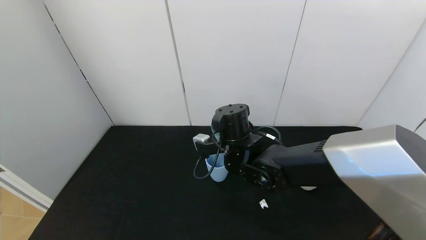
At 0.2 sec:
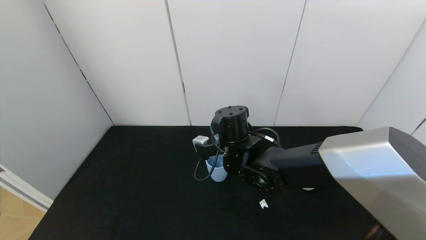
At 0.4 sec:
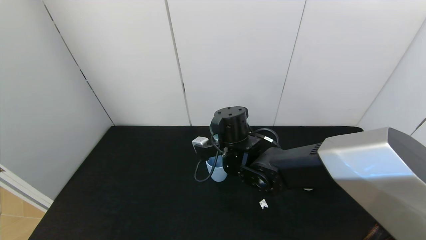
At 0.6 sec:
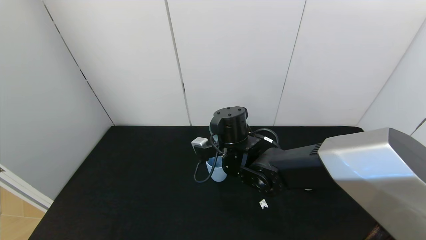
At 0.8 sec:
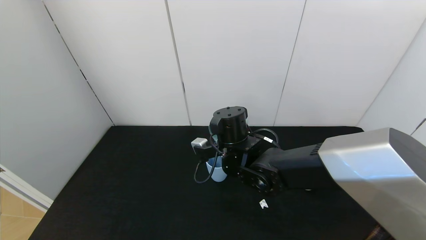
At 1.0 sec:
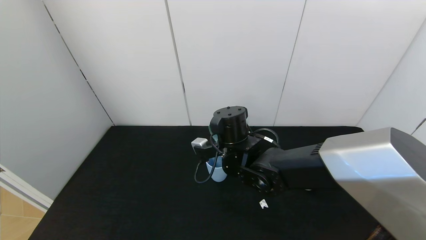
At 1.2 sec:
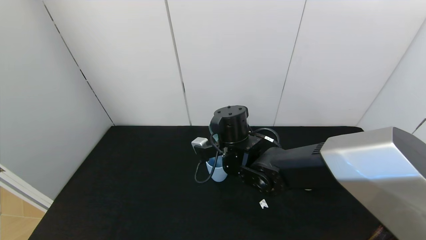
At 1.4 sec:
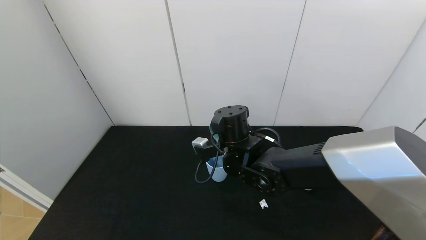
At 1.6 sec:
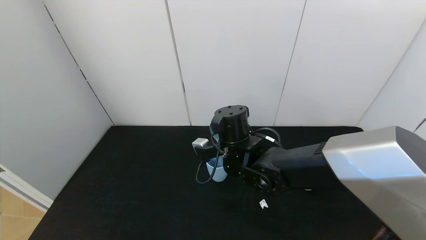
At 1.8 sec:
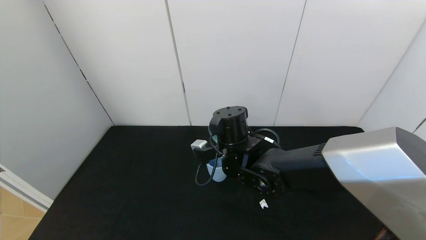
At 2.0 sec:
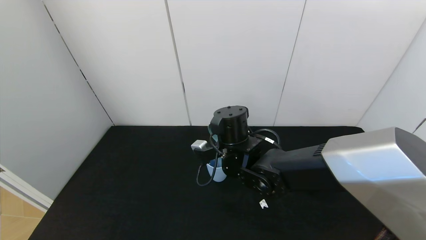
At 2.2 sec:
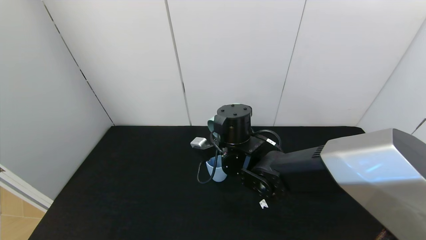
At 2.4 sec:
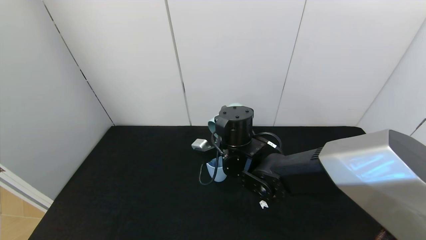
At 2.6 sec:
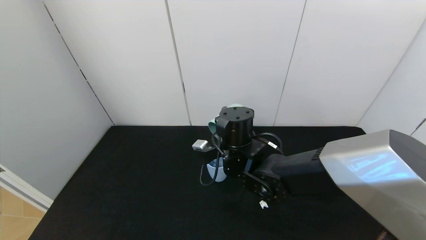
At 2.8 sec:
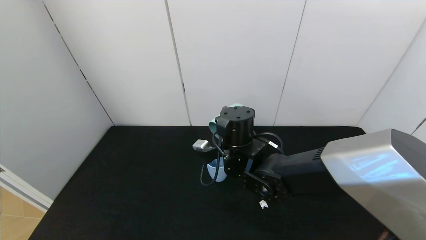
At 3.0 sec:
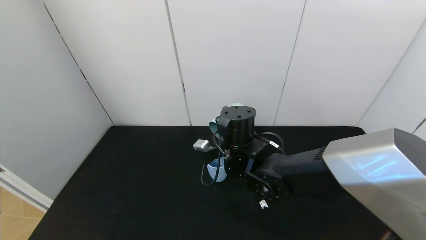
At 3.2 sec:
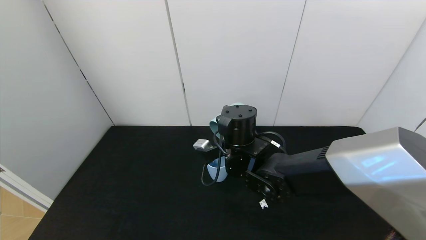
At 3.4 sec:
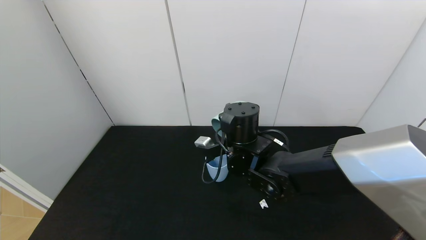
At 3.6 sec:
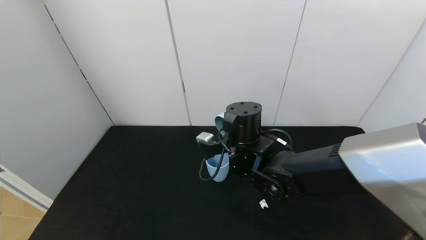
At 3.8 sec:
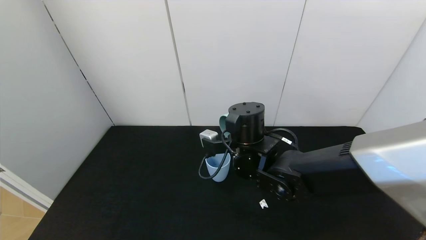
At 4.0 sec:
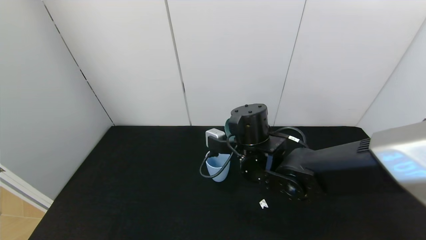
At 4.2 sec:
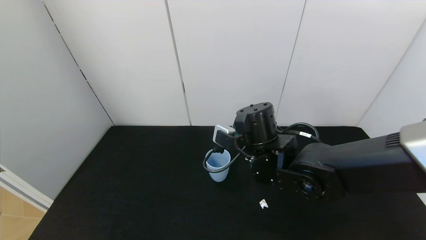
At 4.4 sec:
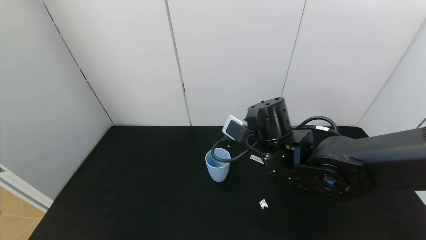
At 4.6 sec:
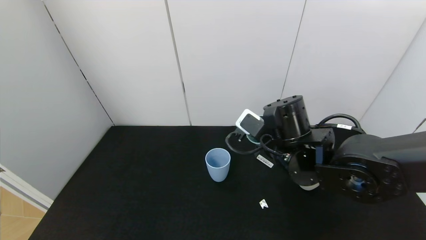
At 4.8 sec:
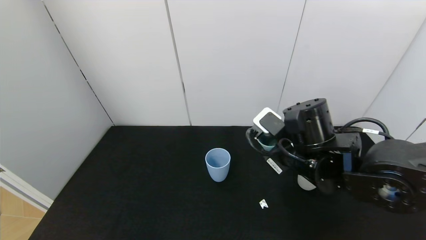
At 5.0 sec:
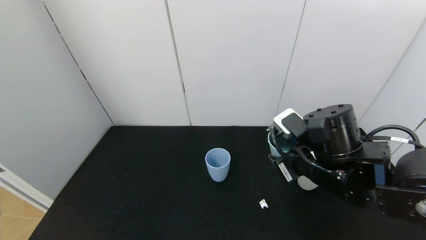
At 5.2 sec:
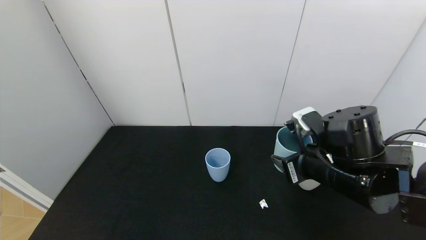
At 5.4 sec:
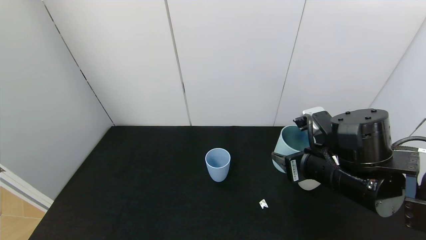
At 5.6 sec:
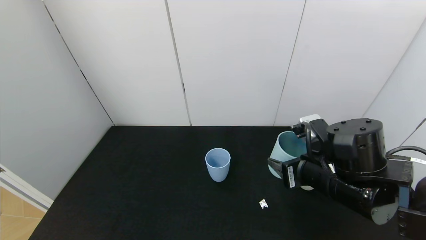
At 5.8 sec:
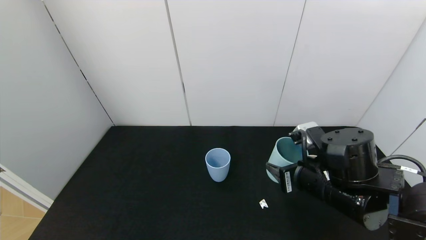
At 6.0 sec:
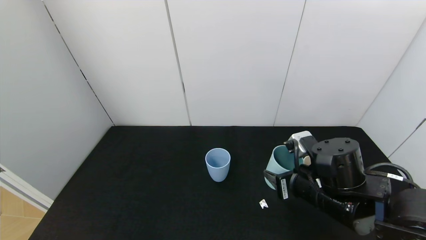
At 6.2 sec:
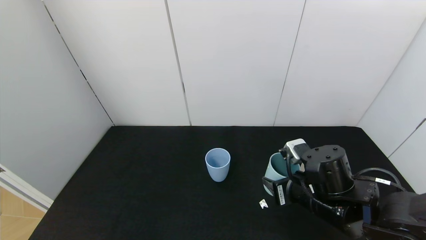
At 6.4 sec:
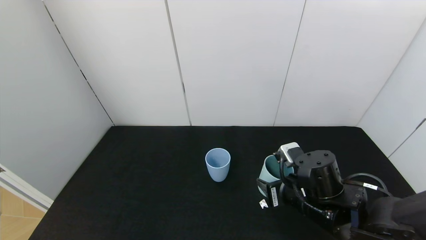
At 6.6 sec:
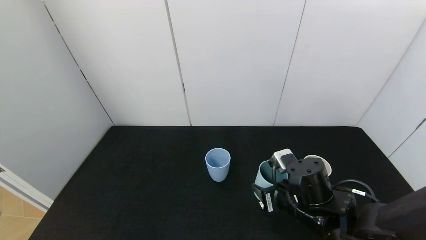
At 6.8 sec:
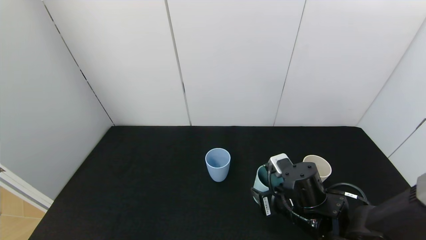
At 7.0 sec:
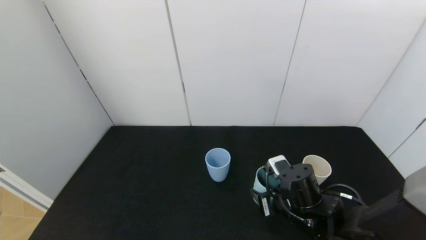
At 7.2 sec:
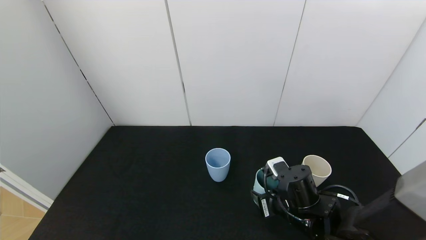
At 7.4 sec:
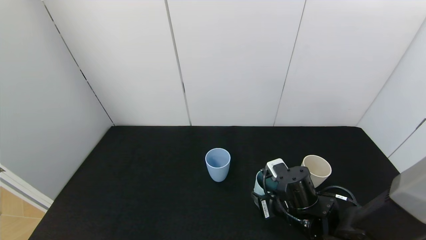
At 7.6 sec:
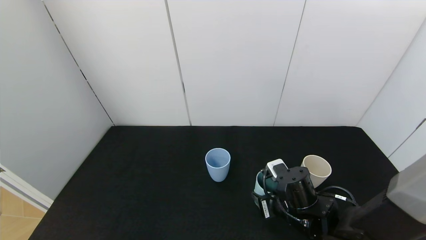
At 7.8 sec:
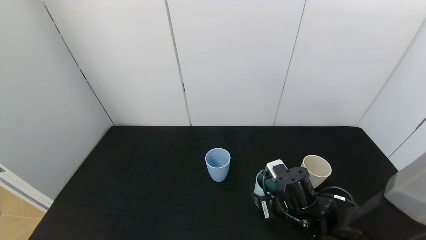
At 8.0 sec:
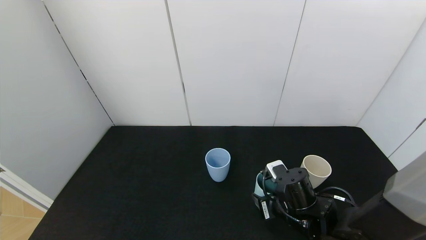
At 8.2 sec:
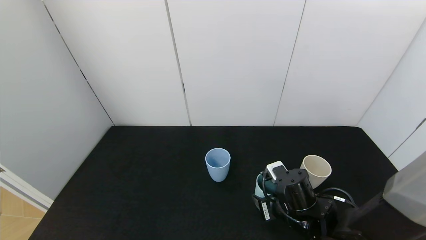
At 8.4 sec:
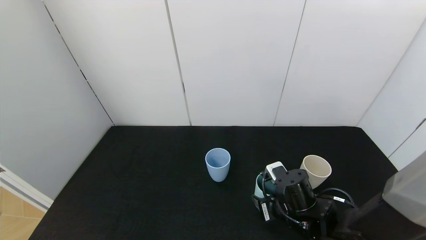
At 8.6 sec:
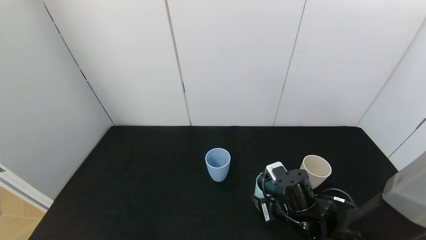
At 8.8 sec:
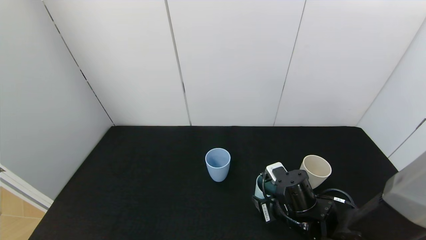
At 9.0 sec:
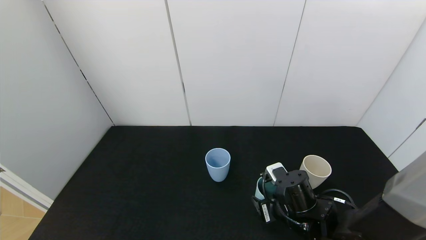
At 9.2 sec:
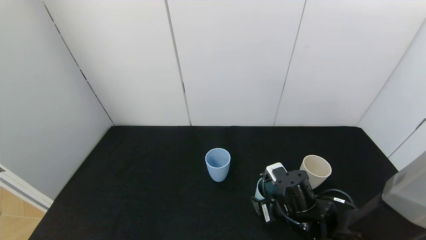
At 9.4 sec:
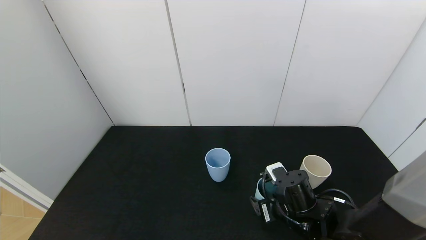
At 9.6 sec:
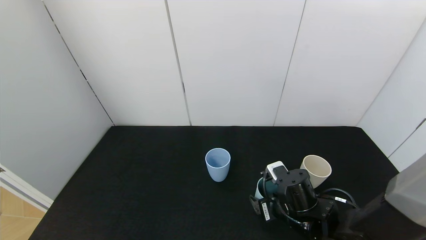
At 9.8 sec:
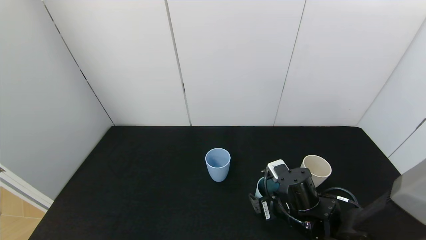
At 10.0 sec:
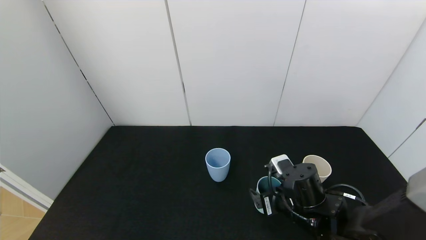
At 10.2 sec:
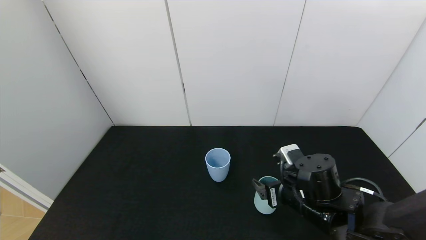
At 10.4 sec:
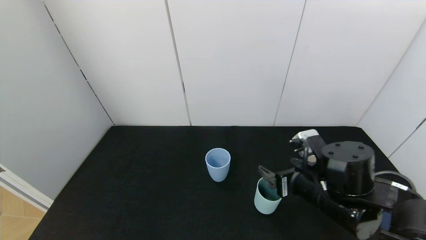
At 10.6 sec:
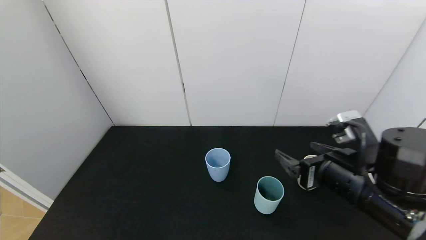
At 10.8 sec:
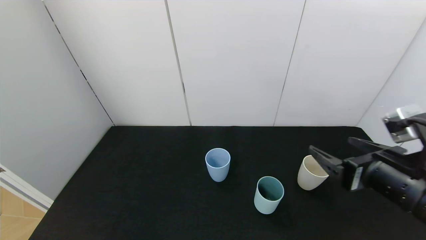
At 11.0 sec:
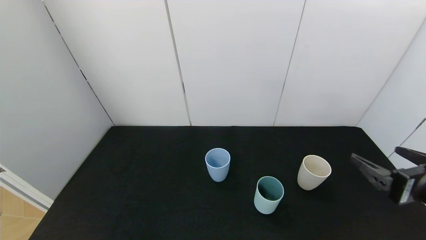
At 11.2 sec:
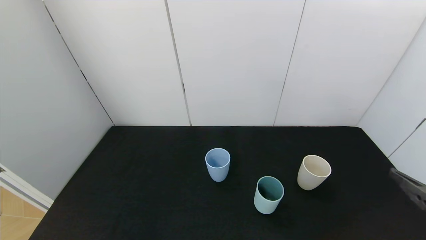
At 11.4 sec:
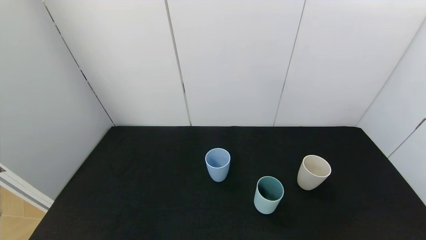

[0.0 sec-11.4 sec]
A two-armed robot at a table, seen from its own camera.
Task of the whole recording: use the gripper to pour the water into the other two cups on black table.
Step, 0.0 sec to 4.4 sec: Pour water from green cup to blue cup with the right gripper.
Step, 4.6 sec to 10.4 sec: Place the green cup with the right gripper.
0.0 sec to 1.4 sec: The two grippers keep their place.
1.4 sec to 2.8 sec: The grippers make only small movements.
2.8 sec to 4.2 sec: The right gripper heads to the right, covering roughly 5 cm.
4.2 sec to 5.6 sec: The right gripper is displaced to the right and backward by approximately 15 cm.
5.6 sec to 7.2 sec: The right gripper moves downward, some 10 cm.
7.2 sec to 8.6 sec: Both grippers stay about where they are.
8.6 sec to 10.0 sec: The right gripper opens up.
10.0 sec to 11.4 sec: The right gripper goes roughly 30 cm to the right, backward and upward.

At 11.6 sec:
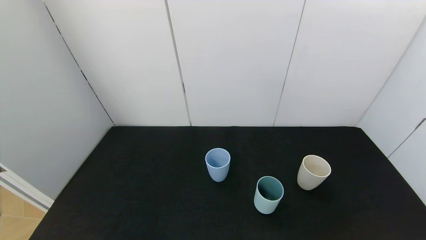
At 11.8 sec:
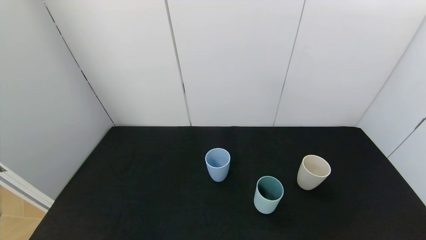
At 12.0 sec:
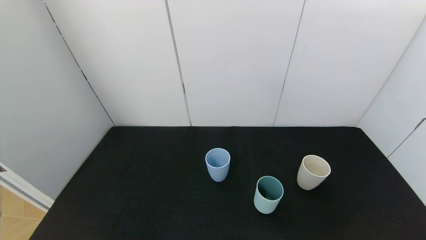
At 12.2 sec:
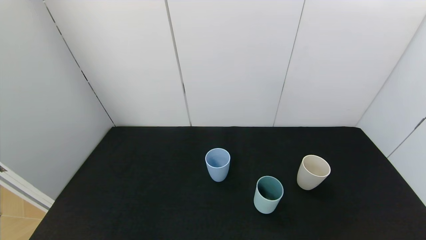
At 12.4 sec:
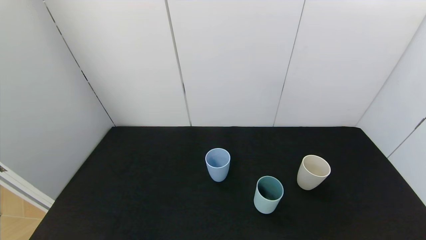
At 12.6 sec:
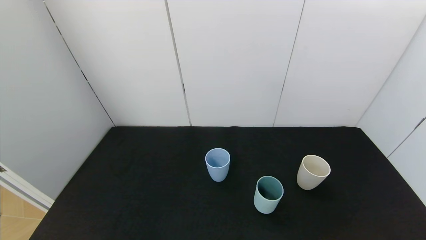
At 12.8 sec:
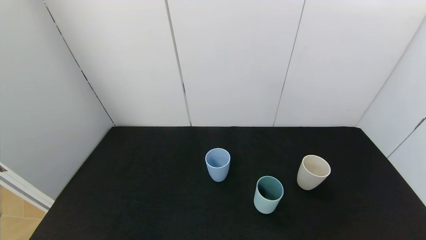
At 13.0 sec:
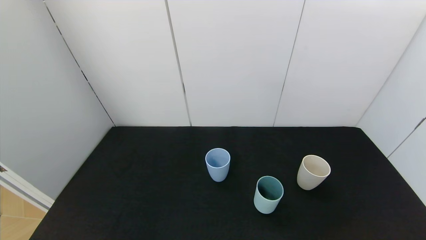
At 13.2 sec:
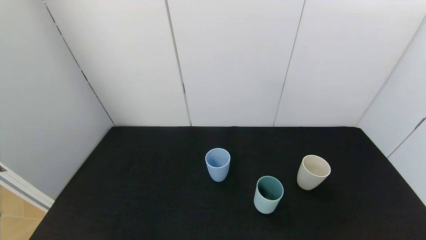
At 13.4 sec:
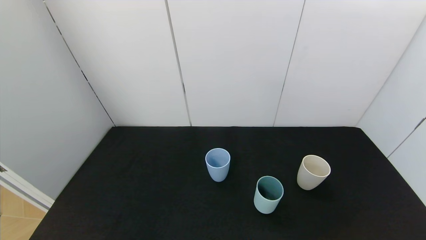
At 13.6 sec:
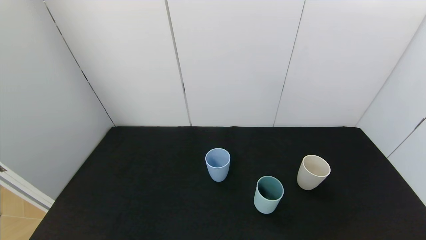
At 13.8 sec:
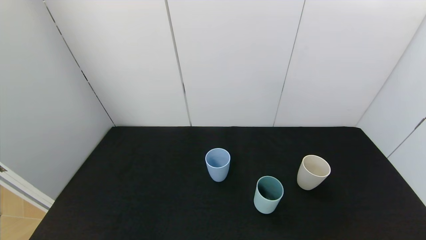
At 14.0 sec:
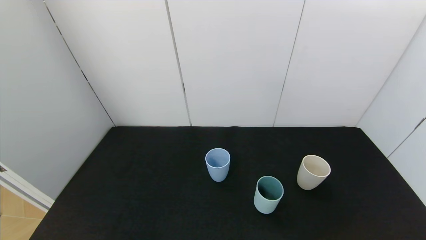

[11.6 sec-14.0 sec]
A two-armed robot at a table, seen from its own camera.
Task of the whole recording: use the gripper to pour the water into the other two cups on black table.
12.8 sec to 14.0 sec: Both grippers stay put.
